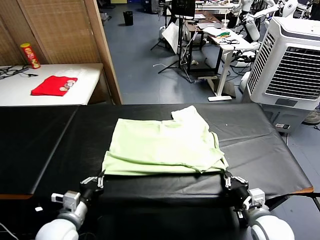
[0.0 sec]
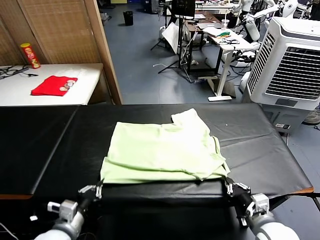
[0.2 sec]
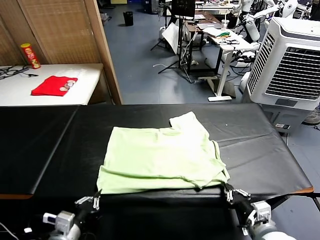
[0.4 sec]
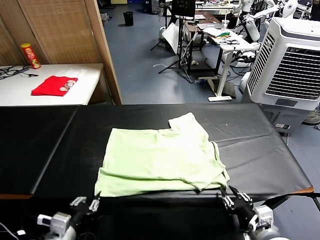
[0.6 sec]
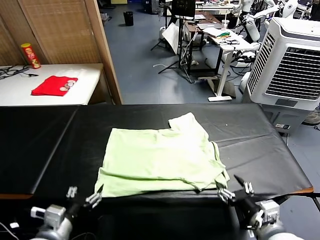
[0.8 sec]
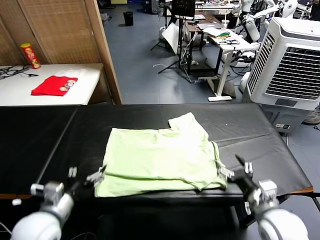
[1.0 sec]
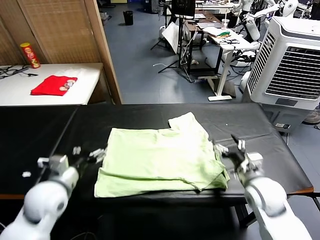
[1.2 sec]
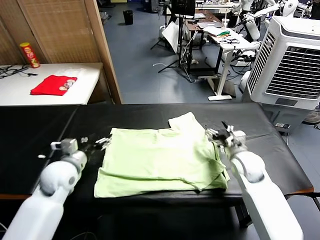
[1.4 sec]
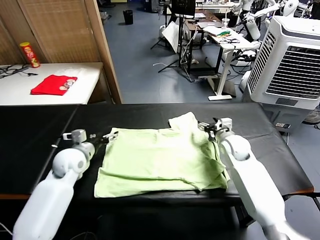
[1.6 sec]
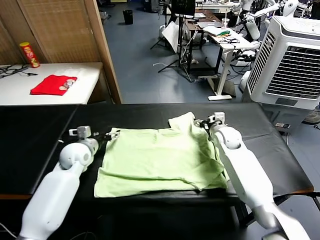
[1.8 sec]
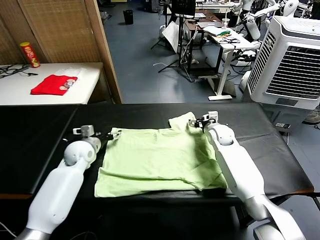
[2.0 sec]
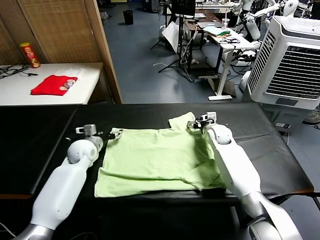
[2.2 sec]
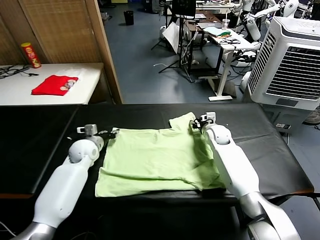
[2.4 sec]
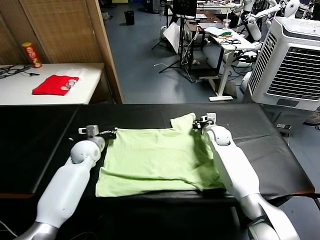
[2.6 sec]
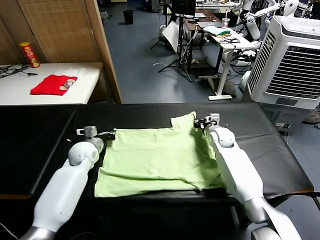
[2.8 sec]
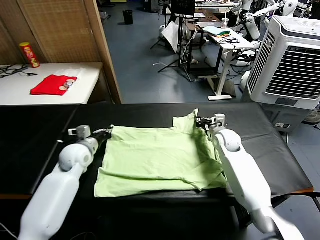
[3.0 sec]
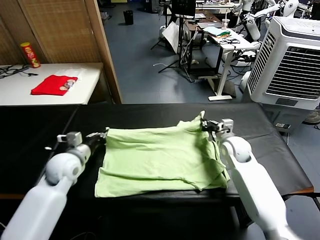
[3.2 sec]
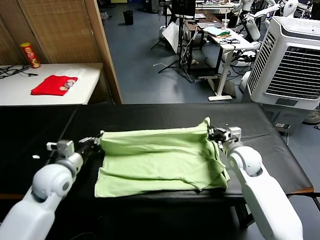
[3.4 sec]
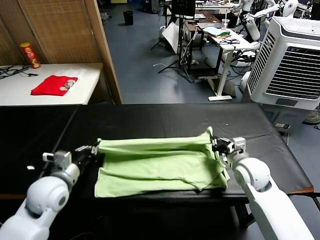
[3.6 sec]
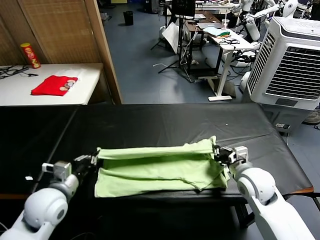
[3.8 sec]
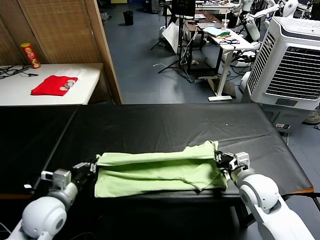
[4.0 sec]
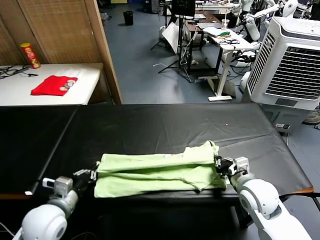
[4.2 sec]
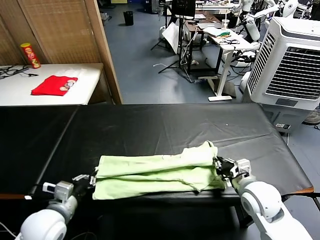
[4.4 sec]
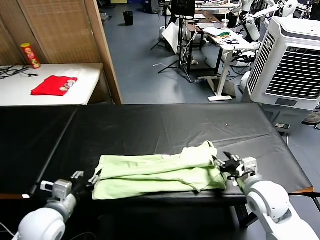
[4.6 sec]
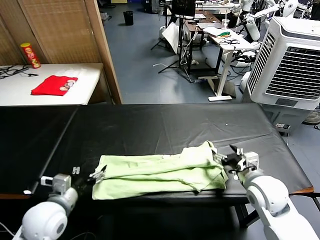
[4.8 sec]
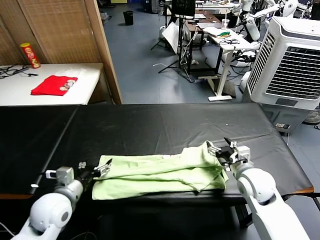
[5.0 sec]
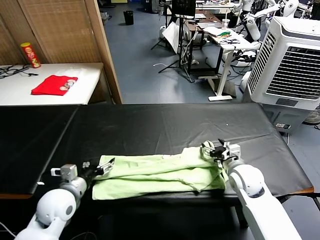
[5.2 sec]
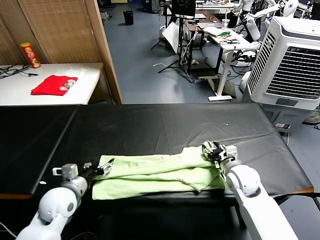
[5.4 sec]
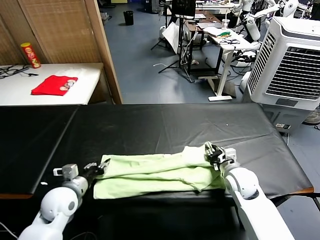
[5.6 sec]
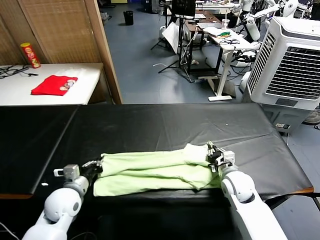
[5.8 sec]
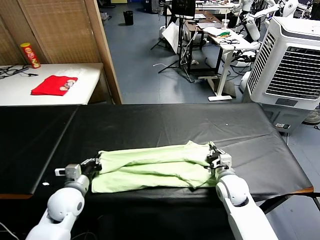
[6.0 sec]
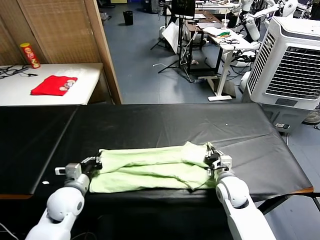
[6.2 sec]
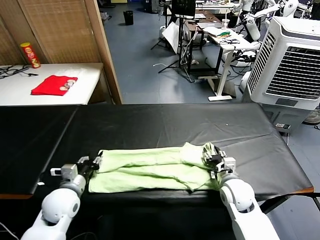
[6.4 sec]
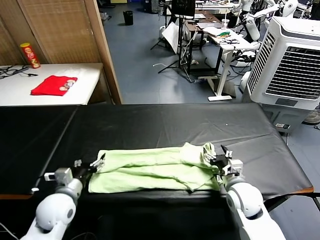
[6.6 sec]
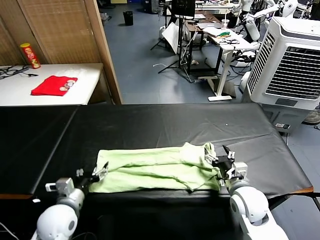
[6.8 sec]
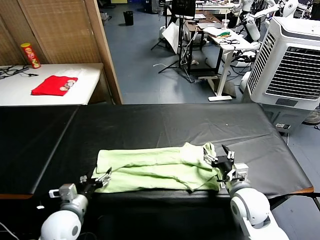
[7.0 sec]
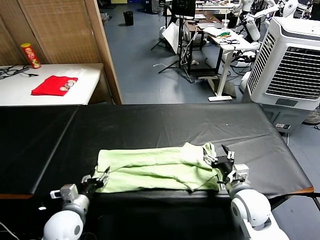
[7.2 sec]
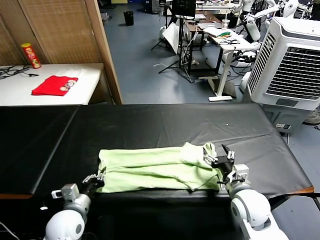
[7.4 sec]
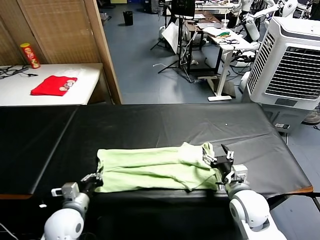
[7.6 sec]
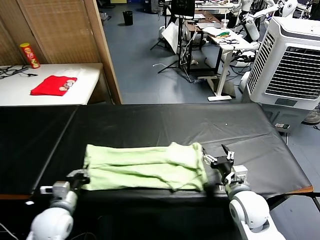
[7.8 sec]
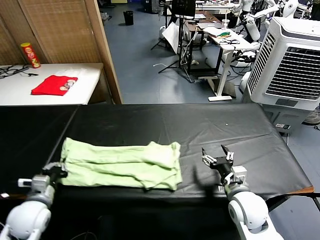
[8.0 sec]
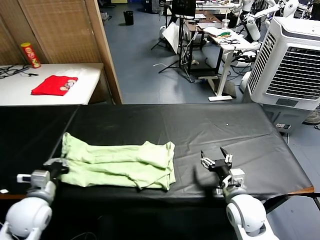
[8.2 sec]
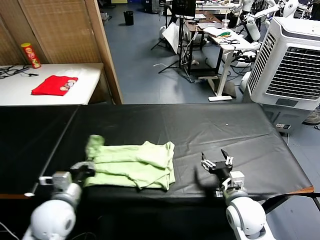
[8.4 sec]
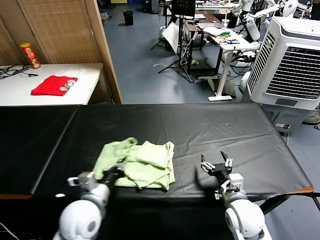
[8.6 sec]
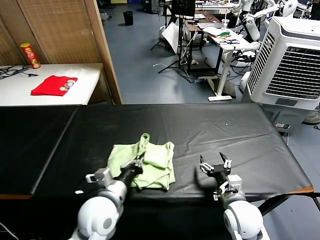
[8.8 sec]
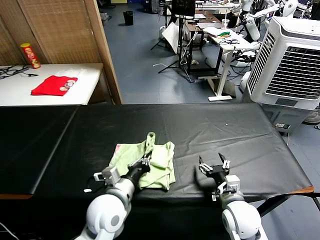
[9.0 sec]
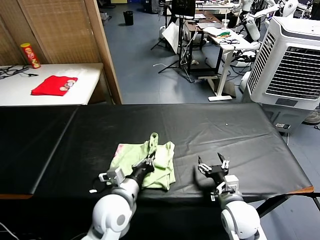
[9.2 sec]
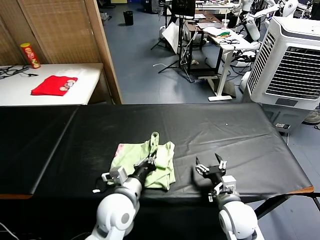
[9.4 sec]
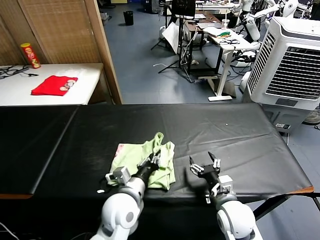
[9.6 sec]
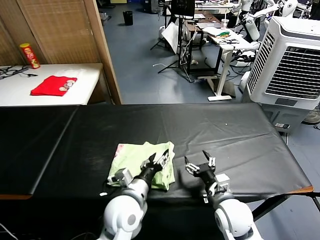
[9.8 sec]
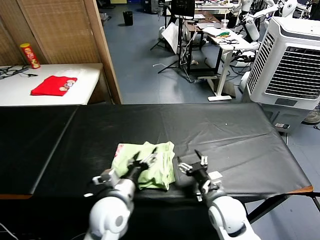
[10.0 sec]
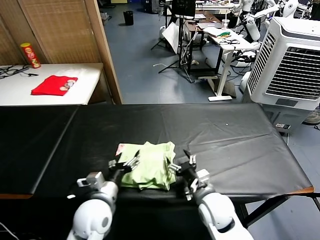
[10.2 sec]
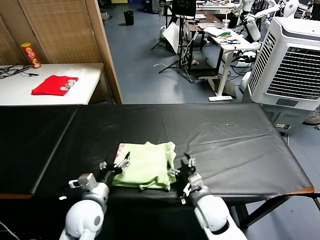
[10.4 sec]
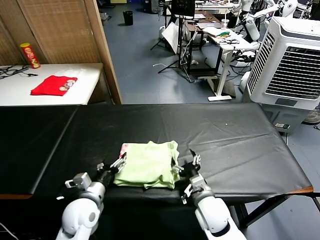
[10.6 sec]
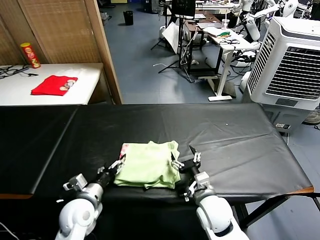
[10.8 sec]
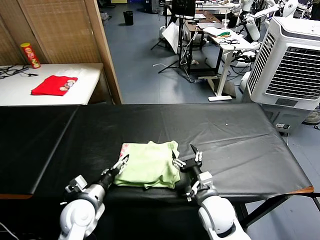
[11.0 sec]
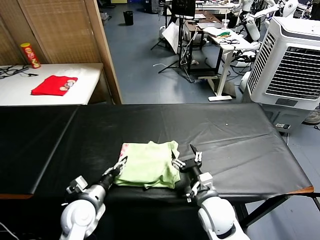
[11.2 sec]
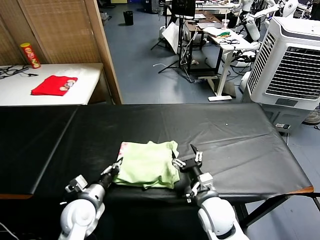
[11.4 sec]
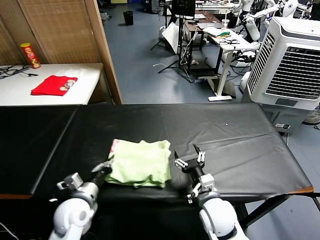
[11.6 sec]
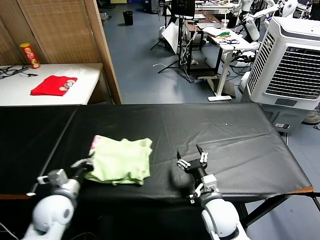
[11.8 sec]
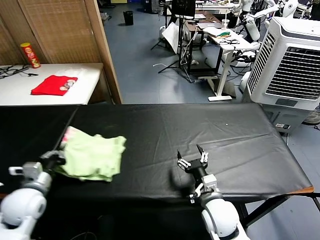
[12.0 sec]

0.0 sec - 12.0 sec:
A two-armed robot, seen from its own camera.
Task of the whole recording: fold and organize the clothes.
Step, 0.8 sec - 2.6 sec: use both grippers simultaneously to clamp the upper edge of the clothing fabric.
Step, 2.8 sec - 4.6 sec: use both grippers to drag the upper edge of the fabric backward and fold it over the lower edge.
Step, 5.0 sec - 7.4 sec: use the left gripper to clamp the left edge of the fabric.
Step, 7.6 sec - 9.8 sec: use the left gripper to drag the left edge of the fabric to the left and folds it over the right edge.
0.0 sec - 1.6 sec: The left gripper shifts approximately 20 cm forward, and opens. Meanwhile the right gripper is displaced forward by approximately 30 cm, and opens its fingers.
1.6 sec - 3.0 sec: The left gripper closes up, while the right gripper closes its fingers.
3.0 sec - 4.4 sec: Both grippers travel together backward, about 20 cm.
4.4 sec - 6.0 sec: The right gripper is displaced downward and forward by about 10 cm, and opens, then closes once more. Meanwhile the left gripper heads forward and downward, covering some 10 cm, and opens and closes again.
6.0 sec - 7.6 sec: The right gripper moves backward and upward, approximately 10 cm, and opens; the left gripper shifts about 5 cm backward, and opens, then closes again.
7.6 sec - 9.0 sec: The left gripper goes some 15 cm to the right and upward.
9.0 sec - 10.4 sec: Both grippers travel together to the left, about 5 cm. The left gripper opens.
10.4 sec - 12.0 sec: The left gripper travels to the left by about 15 cm, and closes.

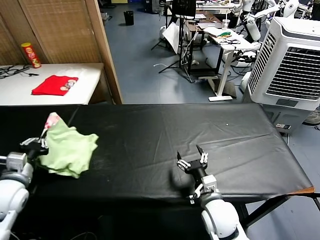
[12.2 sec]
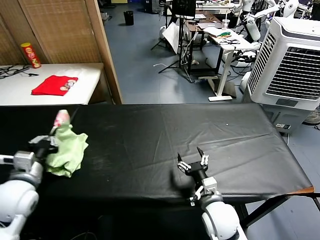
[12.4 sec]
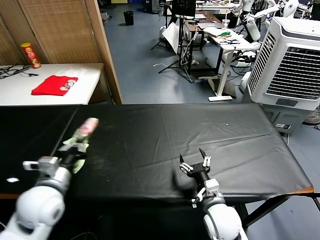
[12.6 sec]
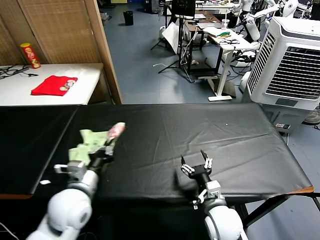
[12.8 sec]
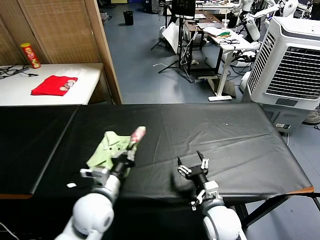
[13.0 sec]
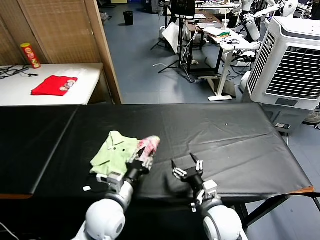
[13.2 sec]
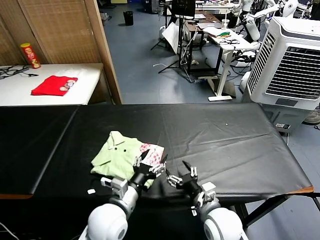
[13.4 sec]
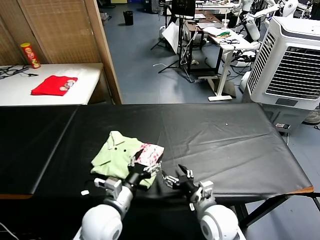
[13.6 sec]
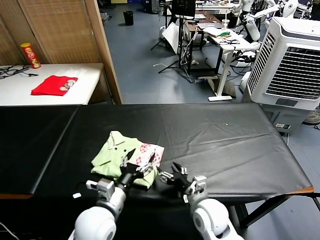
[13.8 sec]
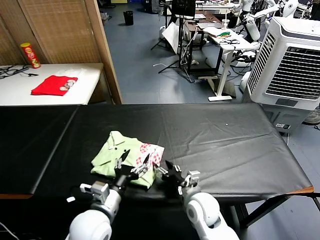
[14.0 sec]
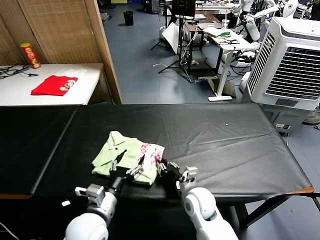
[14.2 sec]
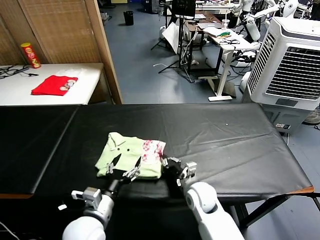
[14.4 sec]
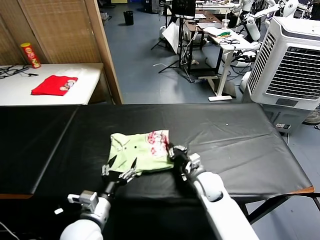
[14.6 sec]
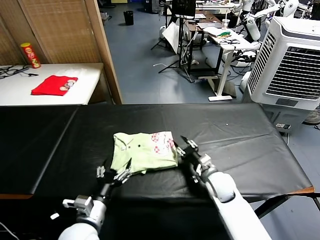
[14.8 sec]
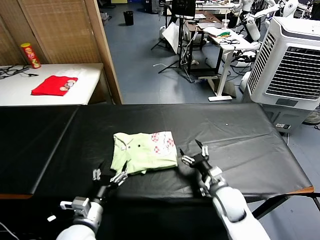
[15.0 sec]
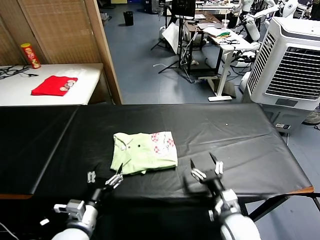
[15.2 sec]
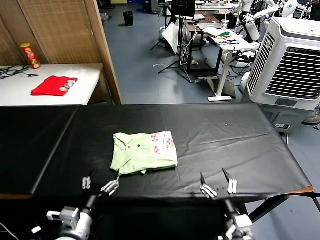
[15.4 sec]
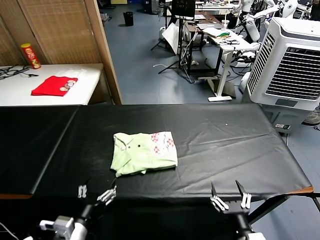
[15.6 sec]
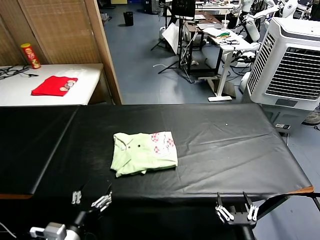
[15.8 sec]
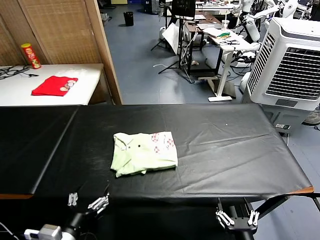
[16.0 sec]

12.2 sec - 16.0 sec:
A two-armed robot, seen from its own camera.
Task of the whole recording: fold and organize the clothes.
Step, 13.4 sec - 14.6 sec: Drag the clothes to the center of the table.
12.2 sec - 13.4 sec: The left gripper travels to the right by about 25 cm, and opens up.
13.4 sec - 14.8 sec: The left gripper travels to the left by some 5 cm. Meanwhile the right gripper goes about 15 cm forward, and closes up.
14.8 sec - 16.0 sec: The right gripper shifts some 30 cm backward, and opens up. The left gripper shifts some 10 cm backward.
